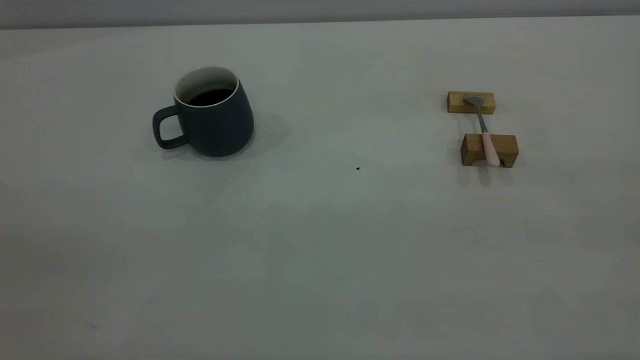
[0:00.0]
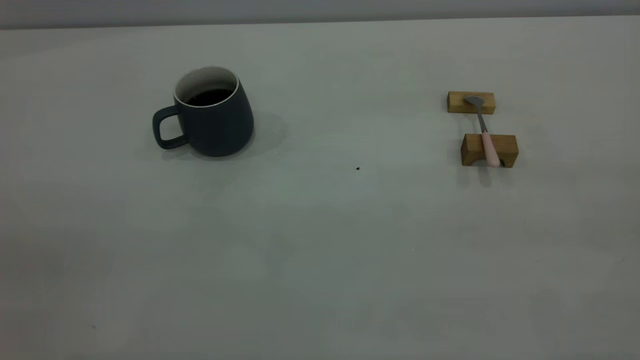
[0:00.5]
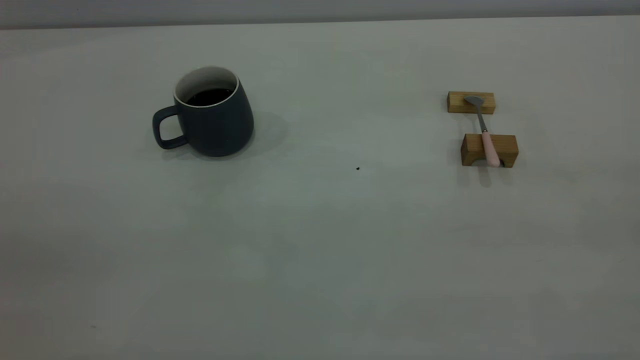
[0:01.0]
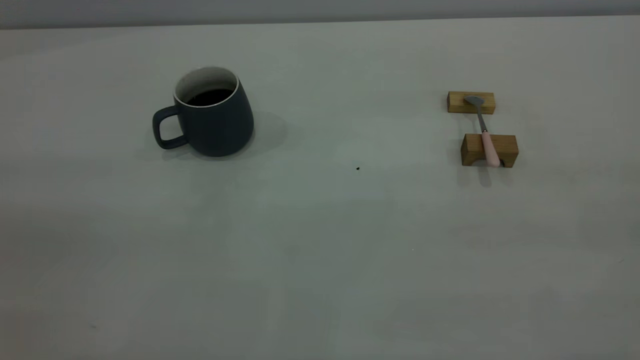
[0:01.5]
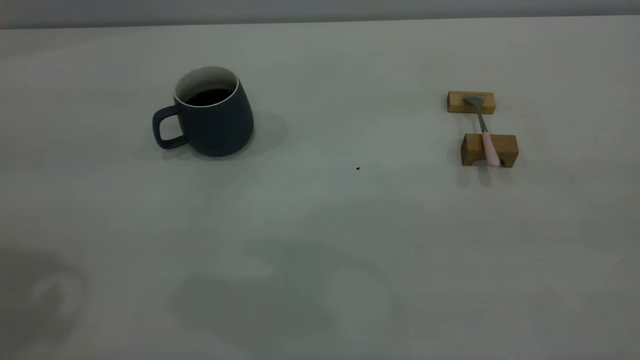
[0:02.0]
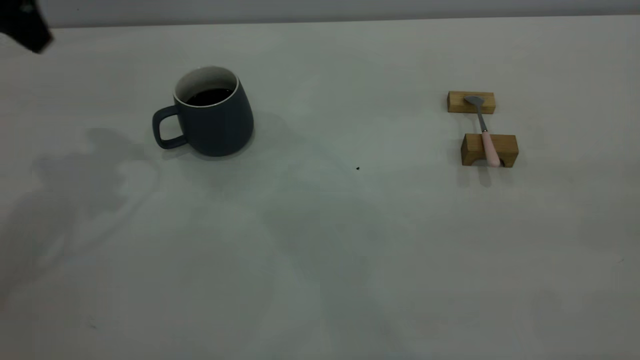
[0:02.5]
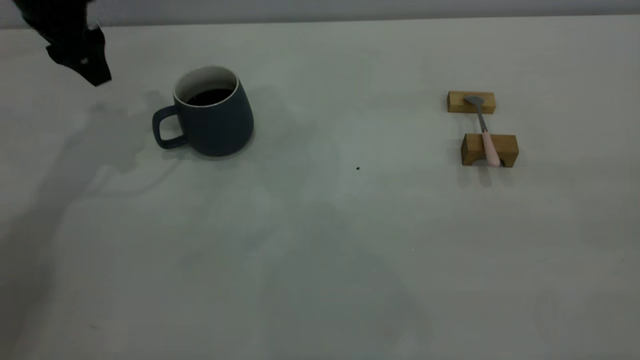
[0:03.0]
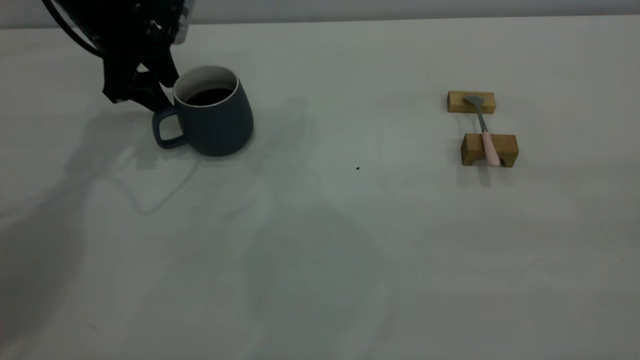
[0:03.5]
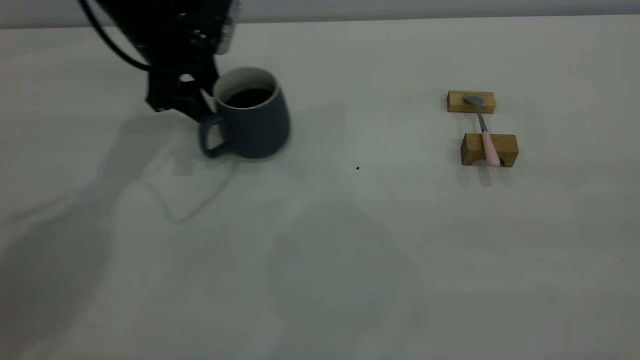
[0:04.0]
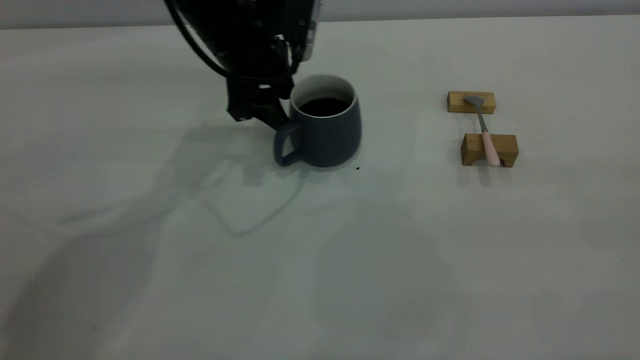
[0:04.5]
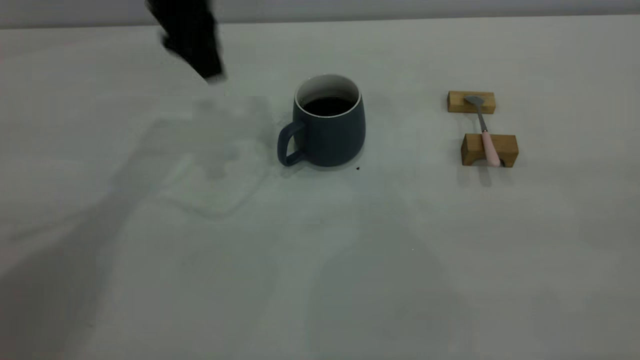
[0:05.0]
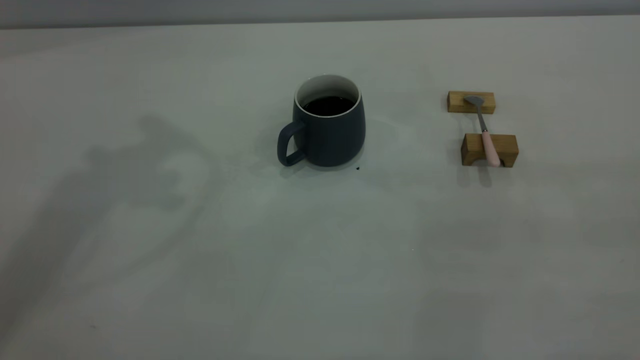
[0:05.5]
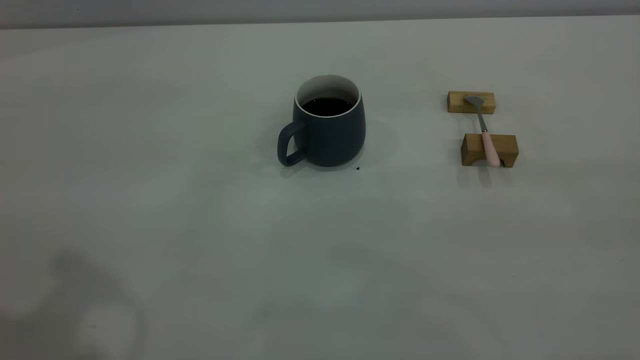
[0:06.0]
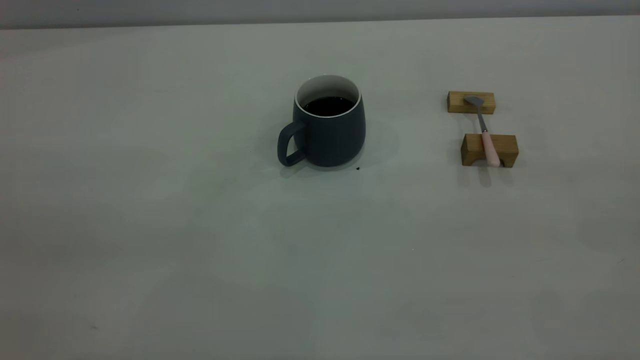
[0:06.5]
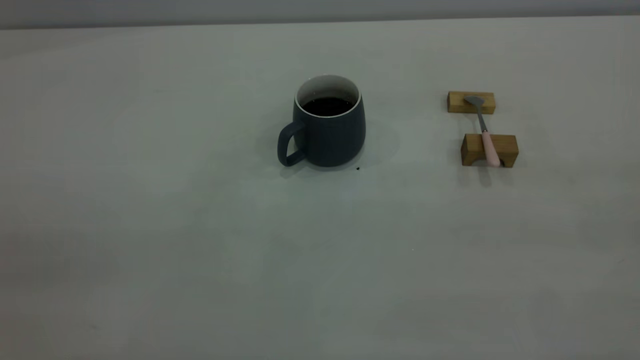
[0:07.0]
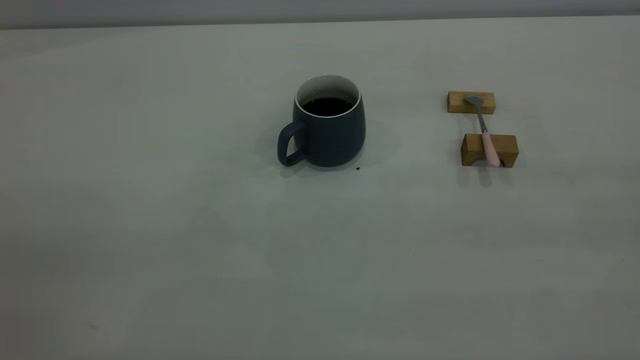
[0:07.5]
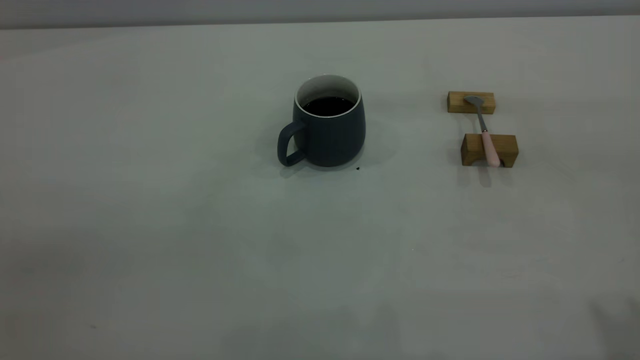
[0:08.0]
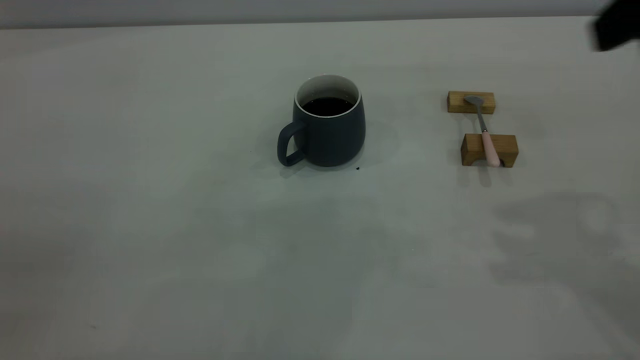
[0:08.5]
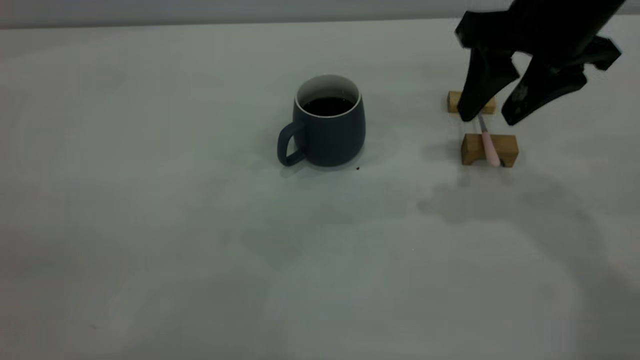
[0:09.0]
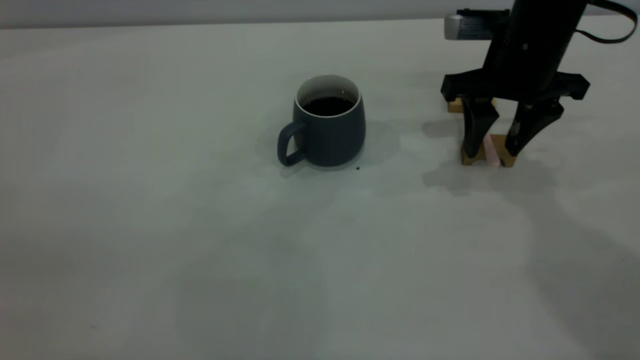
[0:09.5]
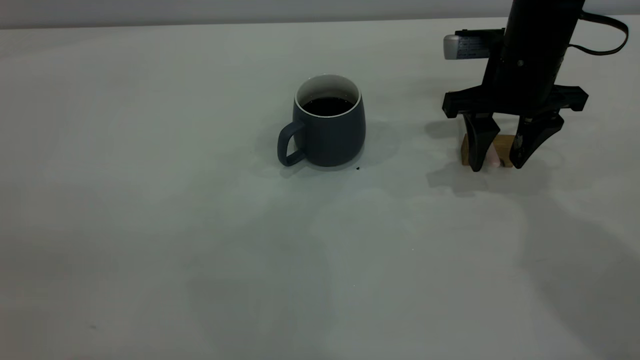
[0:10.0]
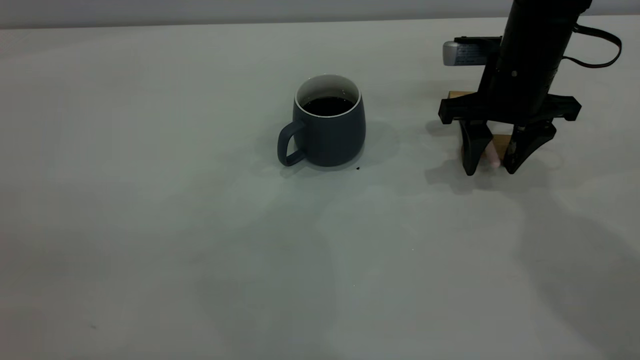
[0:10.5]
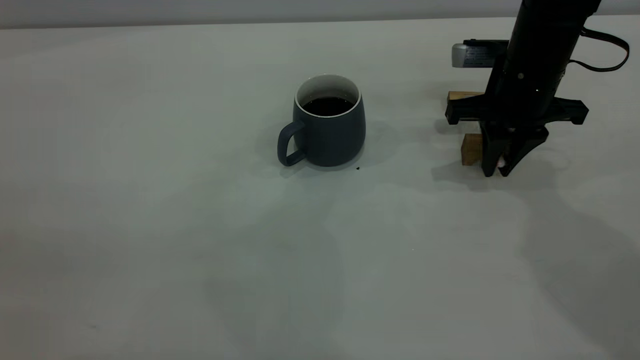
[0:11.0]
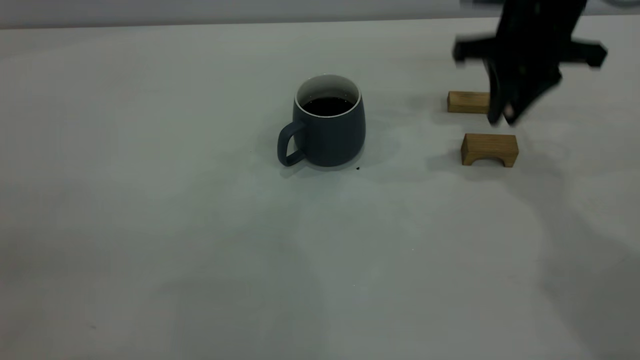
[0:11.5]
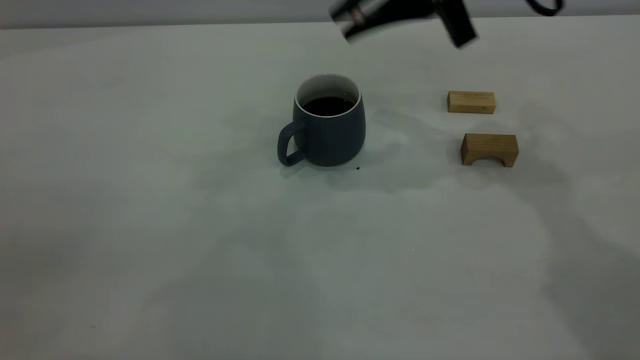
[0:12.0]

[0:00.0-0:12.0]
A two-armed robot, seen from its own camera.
Step, 0:00.0 to 0:04.5: Move the cup with coffee to the center of view.
Step, 0:05.0 to 0:11.0: Pick up the spoon.
0:02.0 to 0:04.0: The left gripper shifts about 35 cm forward and downward.
0:04.0 to 0:06.0: The left gripper is displaced backward and upward by about 40 cm.
0:08.0 to 0:10.0: The right gripper moves forward and downward, some 35 cm, and opens its fingers.
0:10.0 to 0:12.0: The right gripper heads upward and to the left, covering some 15 cm, and closes up.

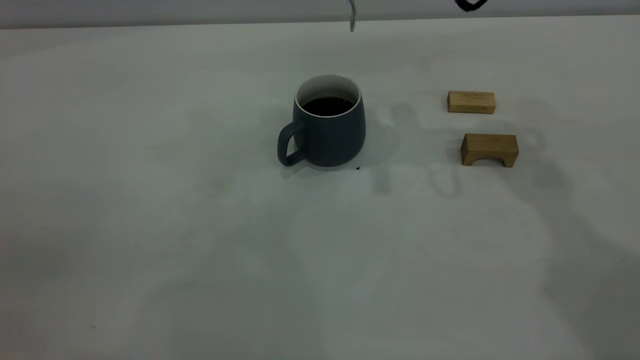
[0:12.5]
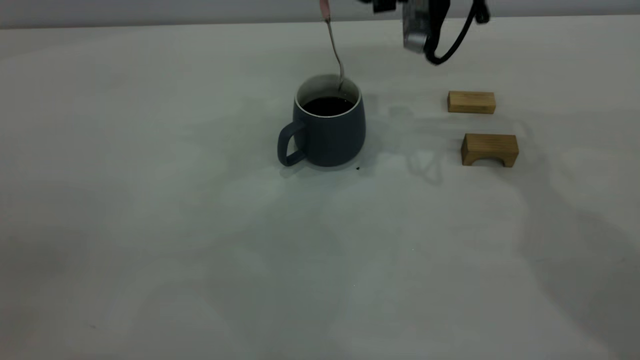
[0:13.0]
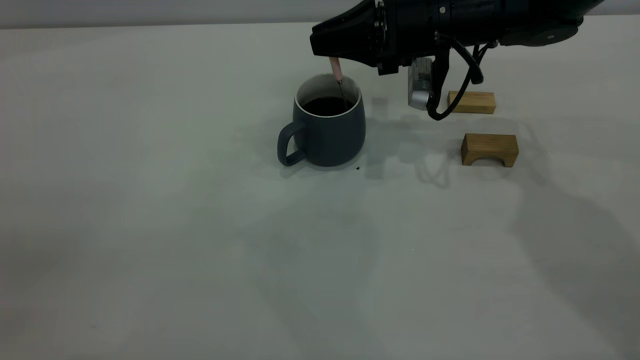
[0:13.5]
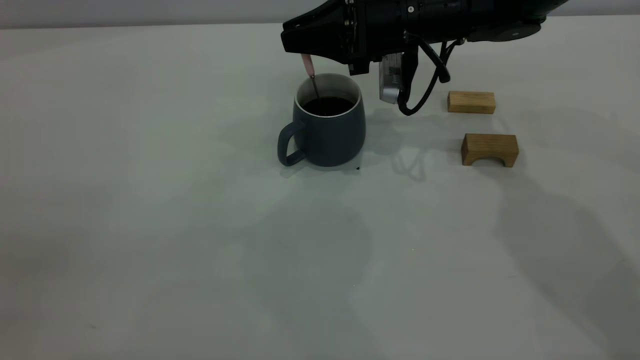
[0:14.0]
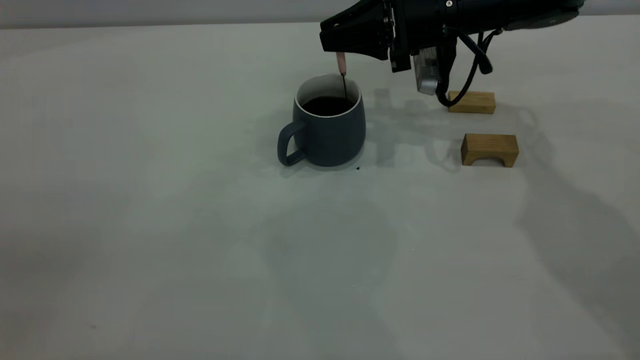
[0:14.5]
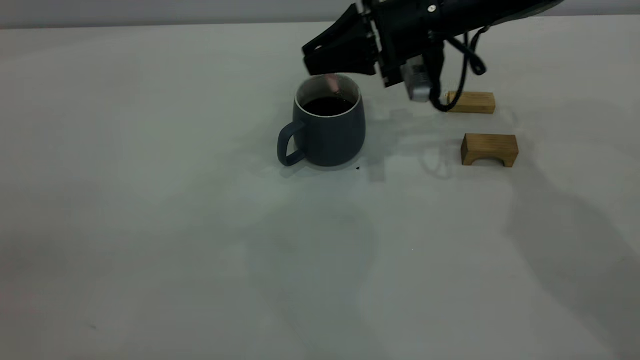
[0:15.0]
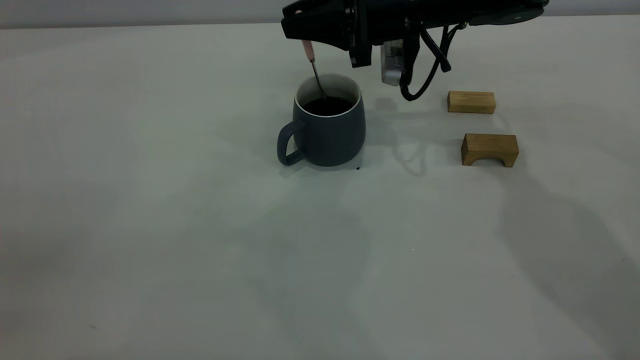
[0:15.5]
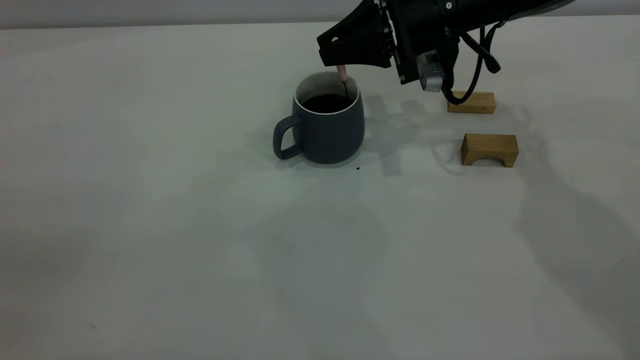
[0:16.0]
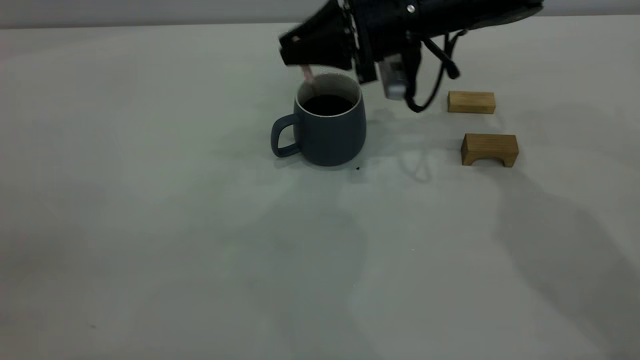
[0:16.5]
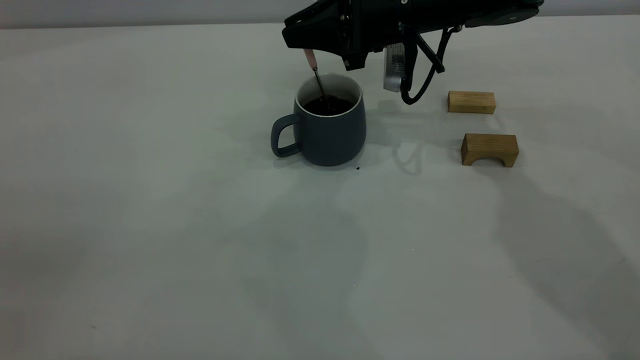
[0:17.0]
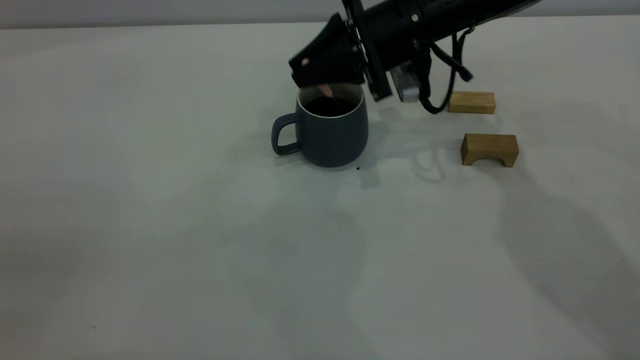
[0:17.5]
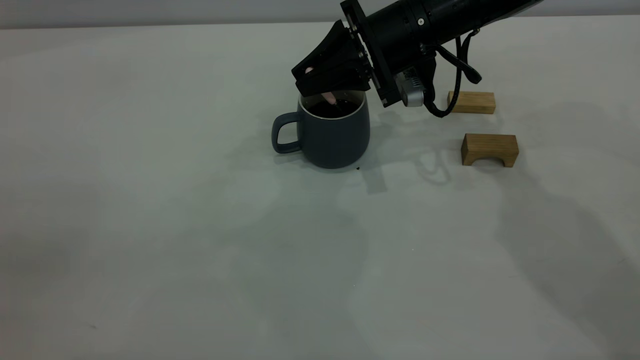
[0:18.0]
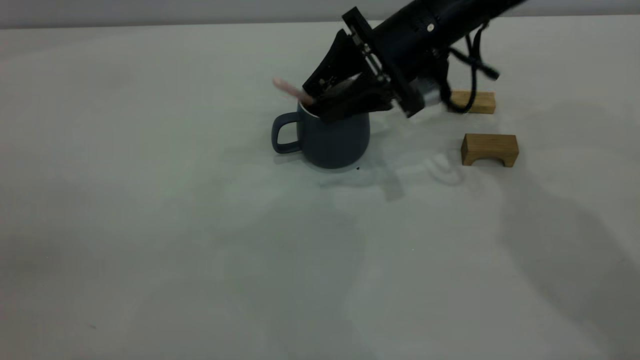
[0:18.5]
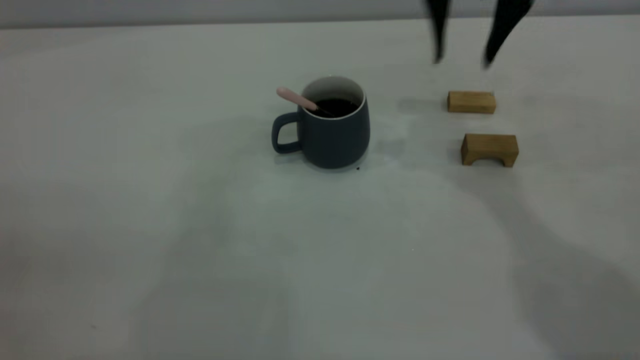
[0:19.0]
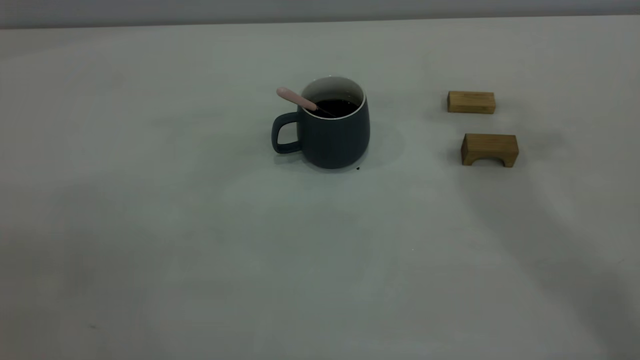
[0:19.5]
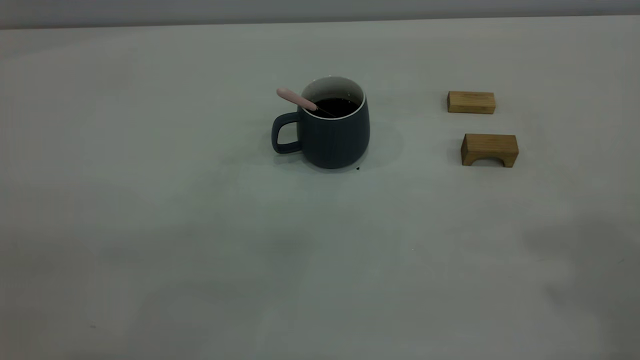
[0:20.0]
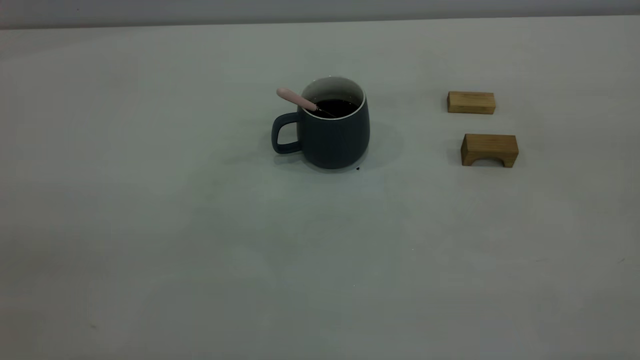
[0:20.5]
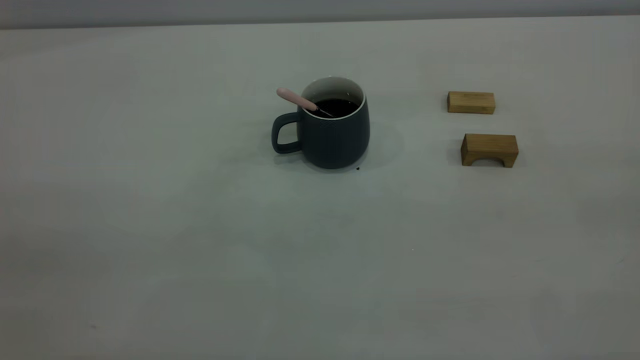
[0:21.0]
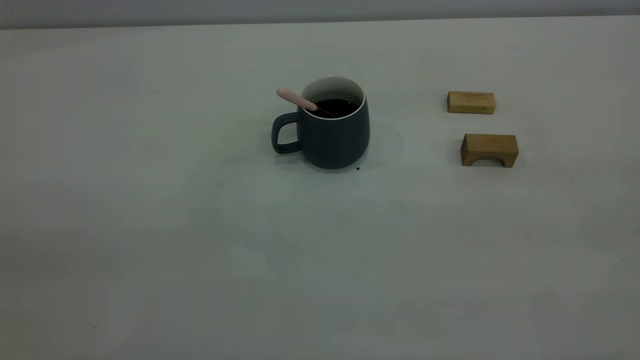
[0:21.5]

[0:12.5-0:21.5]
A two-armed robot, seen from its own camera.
Step, 0:12.5 to 0:18.5: Stir the coffee in the cup.
0:12.5 to 0:14.5: The right gripper is displaced downward by some 15 cm.
0:14.5 to 0:17.0: There are only small adjustments of the grippers.
0:17.0 to 0:19.5: The right gripper shifts some 35 cm upward, and opens up.
